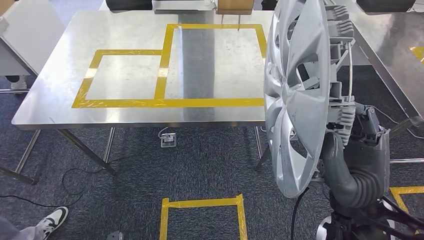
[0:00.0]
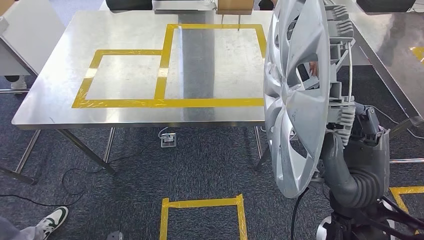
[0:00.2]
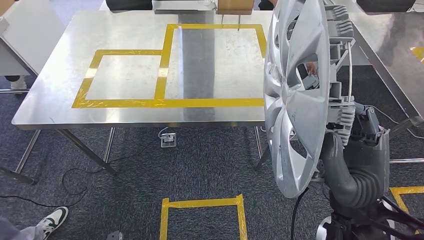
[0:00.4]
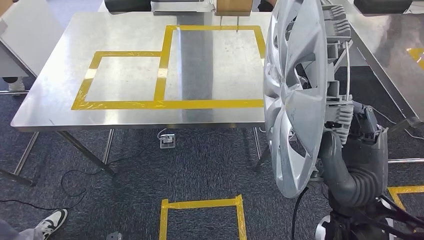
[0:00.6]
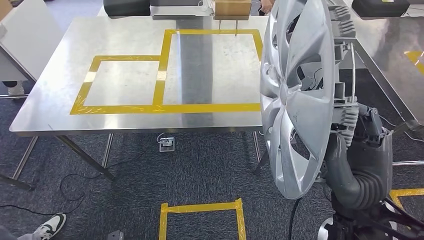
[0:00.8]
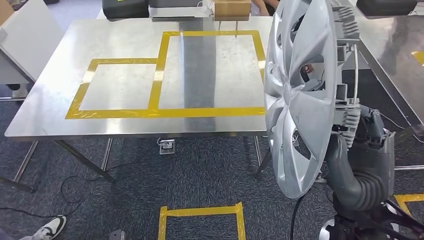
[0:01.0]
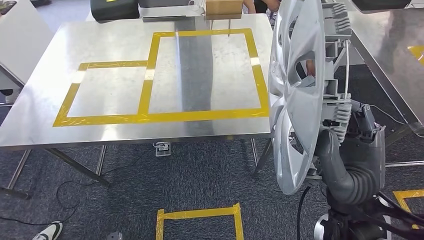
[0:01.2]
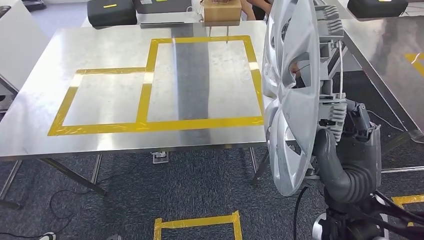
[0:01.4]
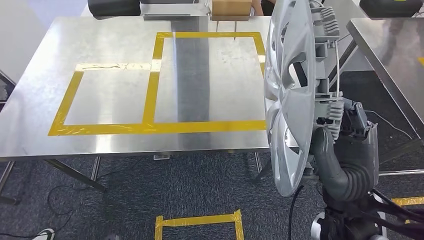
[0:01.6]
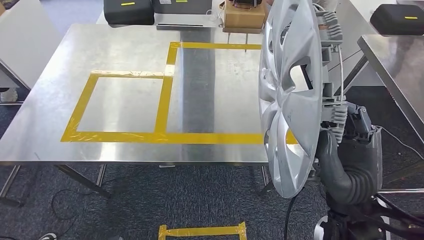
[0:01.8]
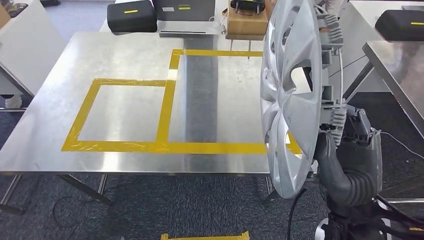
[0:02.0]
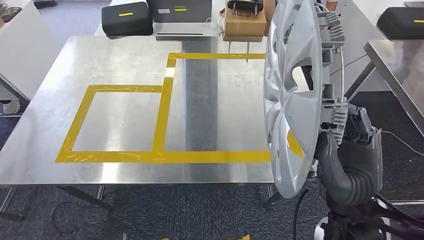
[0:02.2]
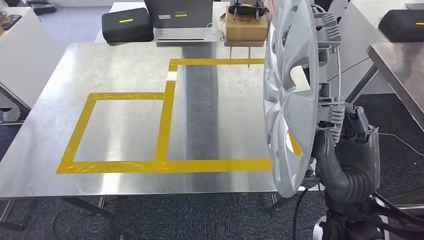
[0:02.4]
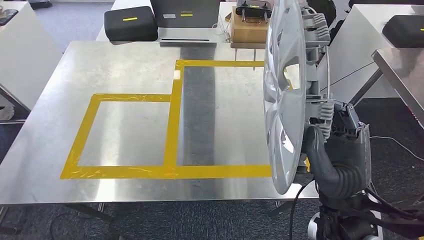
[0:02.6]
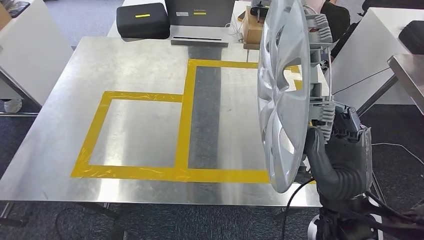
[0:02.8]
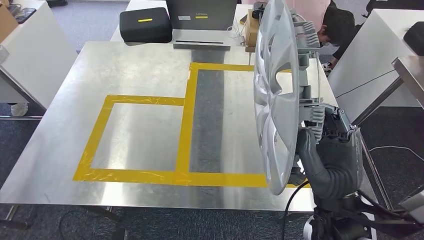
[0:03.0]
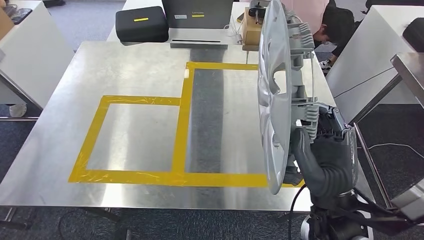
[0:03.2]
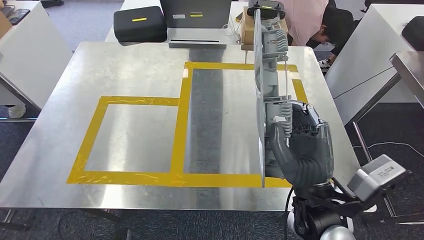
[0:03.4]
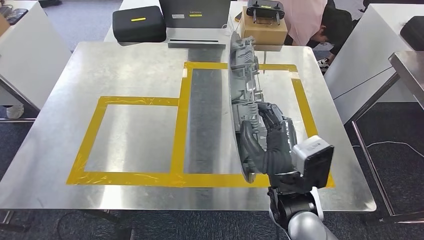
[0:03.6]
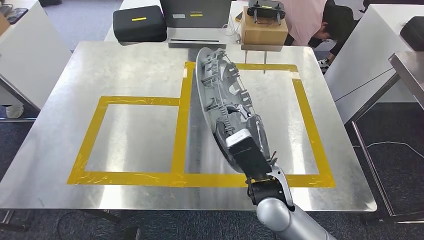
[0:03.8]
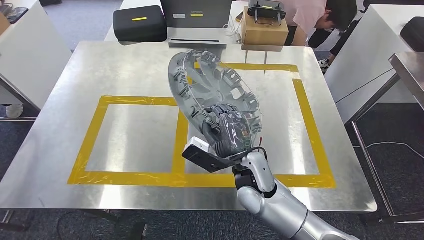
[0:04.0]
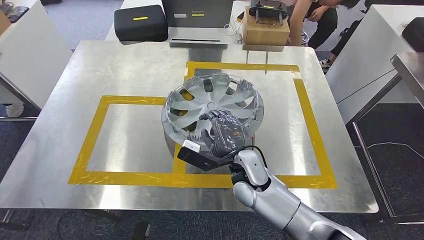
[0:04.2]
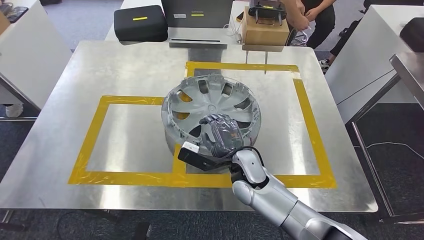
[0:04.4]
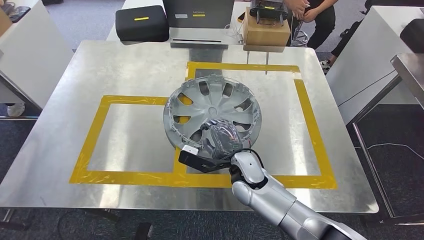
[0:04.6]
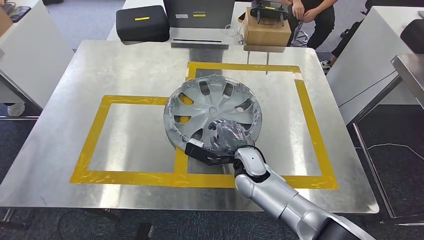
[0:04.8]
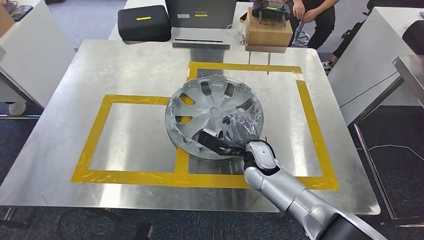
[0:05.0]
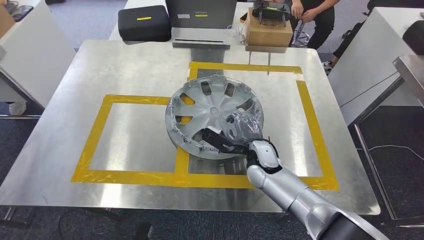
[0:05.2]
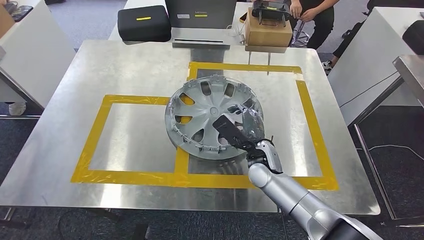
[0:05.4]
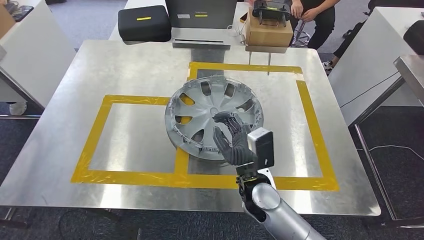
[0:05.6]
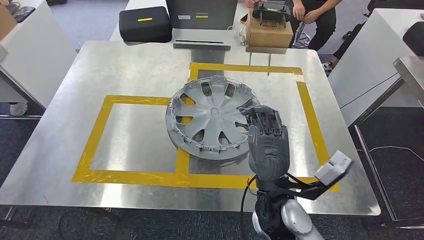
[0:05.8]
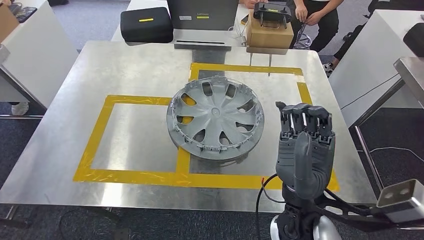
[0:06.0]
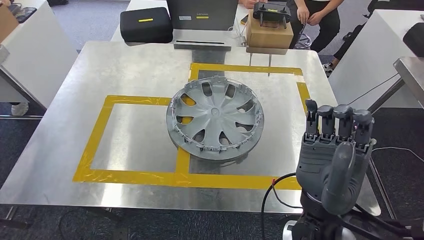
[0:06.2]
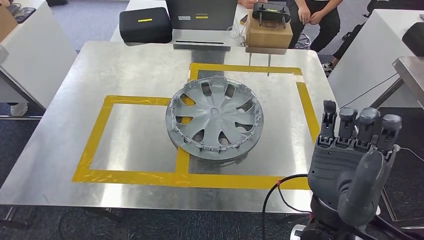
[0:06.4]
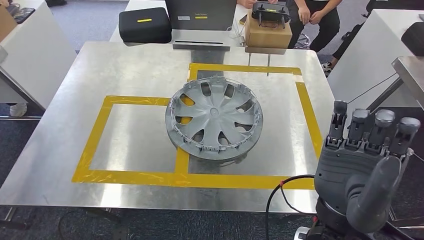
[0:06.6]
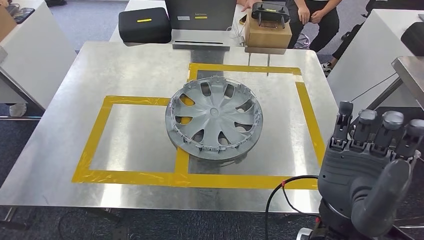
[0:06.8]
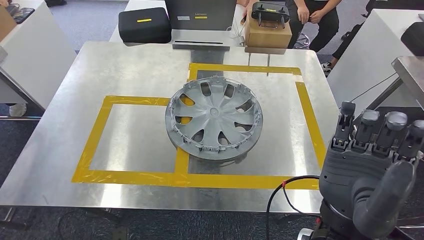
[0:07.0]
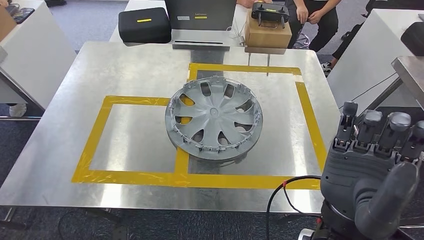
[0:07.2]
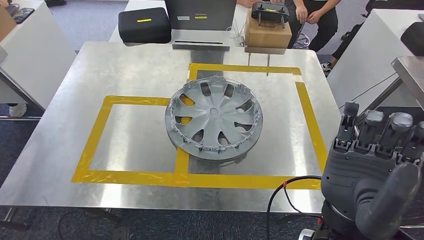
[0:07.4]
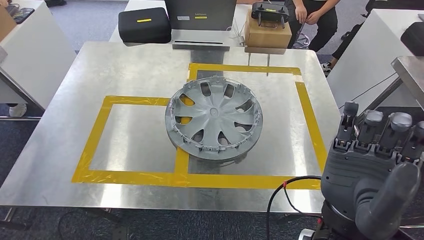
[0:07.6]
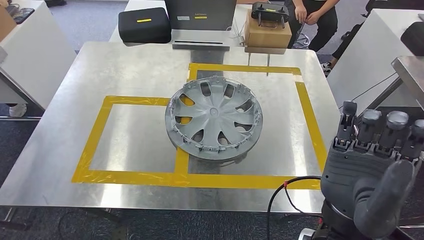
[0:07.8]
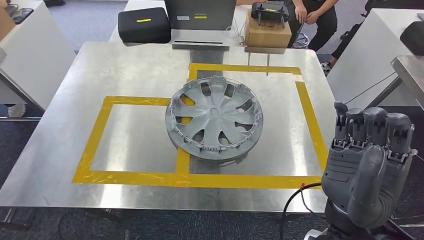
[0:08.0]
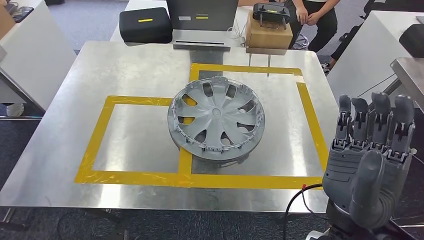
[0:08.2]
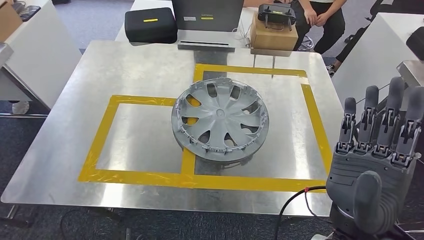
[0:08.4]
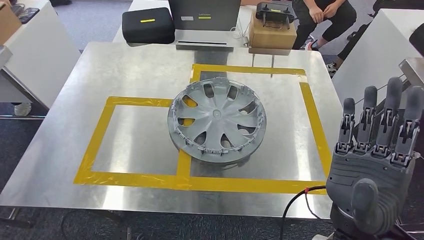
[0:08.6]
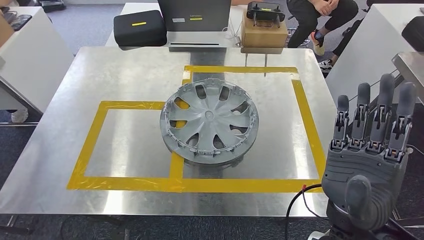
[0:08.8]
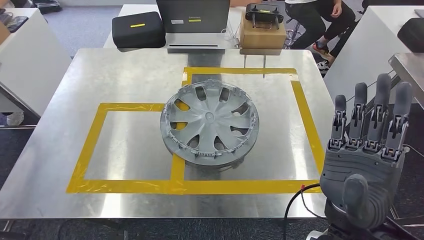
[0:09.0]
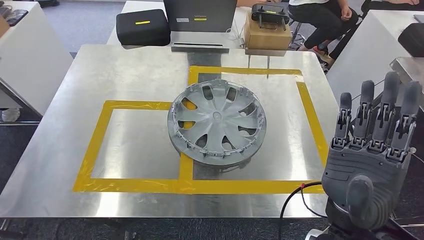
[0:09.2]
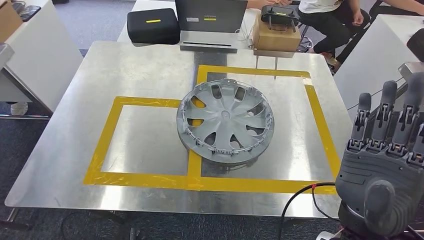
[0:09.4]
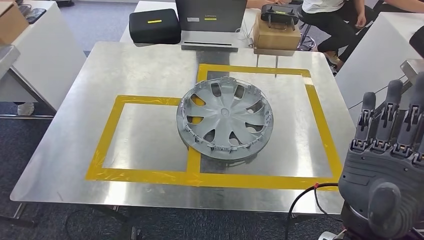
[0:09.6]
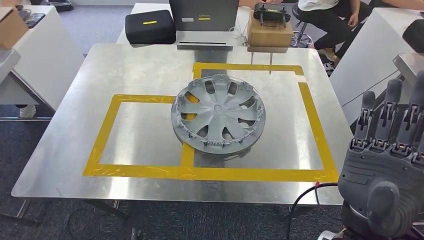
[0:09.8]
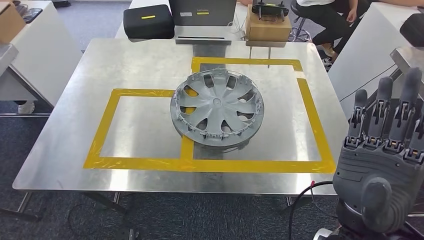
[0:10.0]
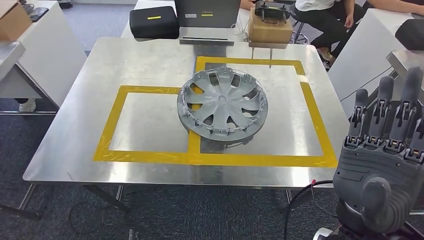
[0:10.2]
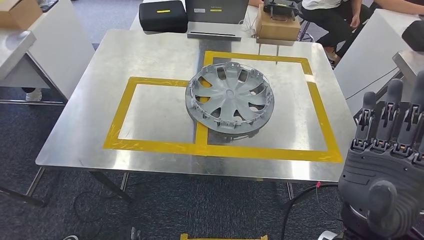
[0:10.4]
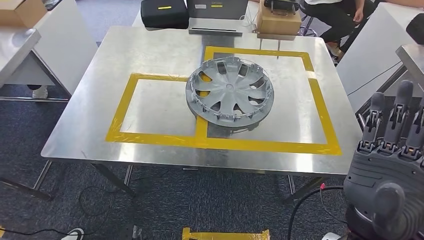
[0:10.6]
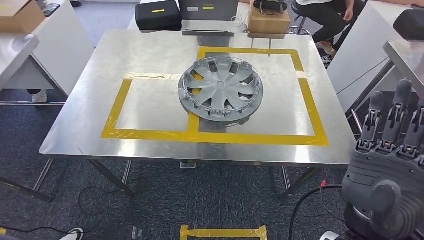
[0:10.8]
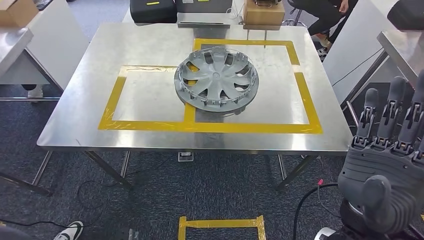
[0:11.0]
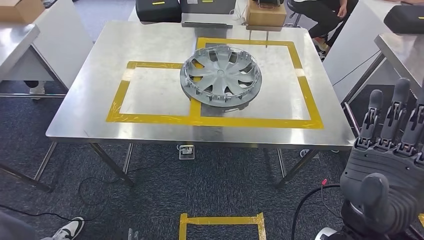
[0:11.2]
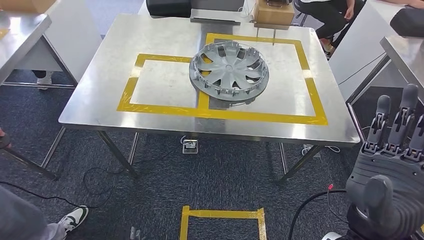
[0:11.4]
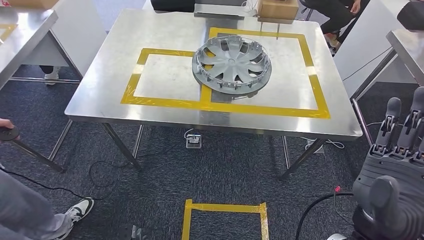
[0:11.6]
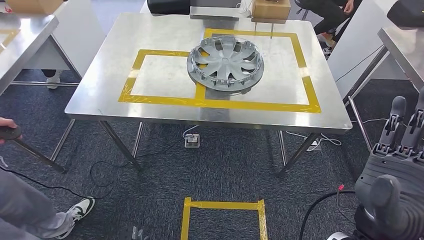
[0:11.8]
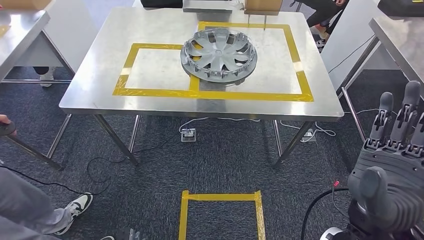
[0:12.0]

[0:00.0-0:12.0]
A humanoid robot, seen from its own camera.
Step, 0:00.0 to 0:03.2: Move the small component to the workbench.
Step, 0:03.6 to 0:11.0: Insert the small component into the corresponding slot on the workbench.
0:06.0 to 0:07.6: The right hand travels upward by roughly 5 cm.

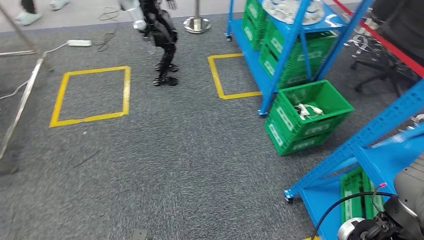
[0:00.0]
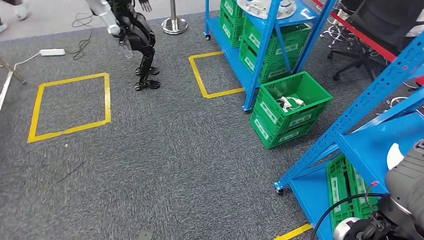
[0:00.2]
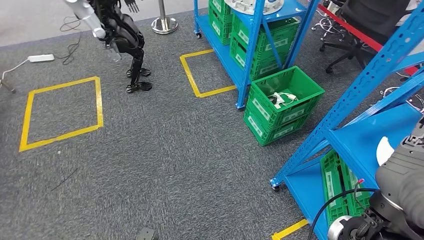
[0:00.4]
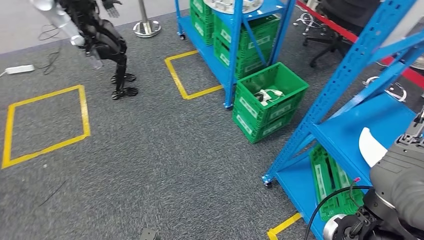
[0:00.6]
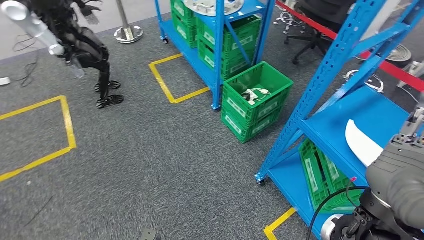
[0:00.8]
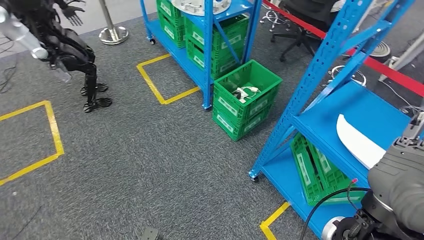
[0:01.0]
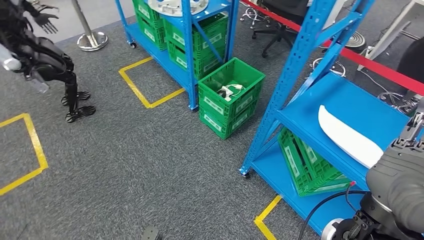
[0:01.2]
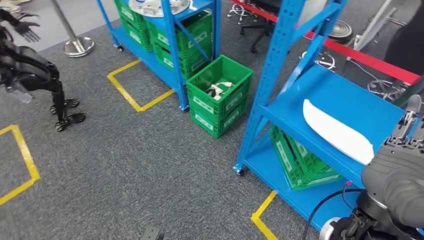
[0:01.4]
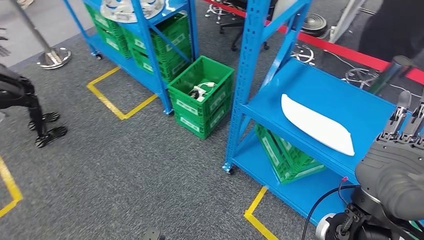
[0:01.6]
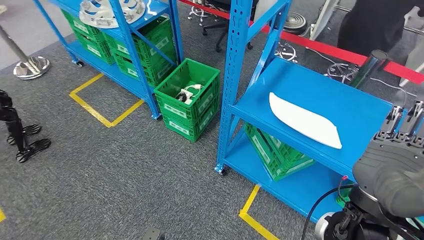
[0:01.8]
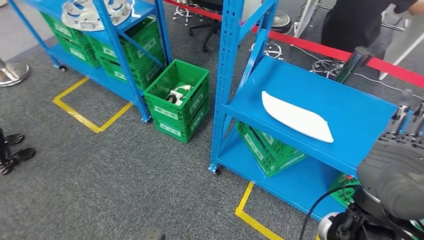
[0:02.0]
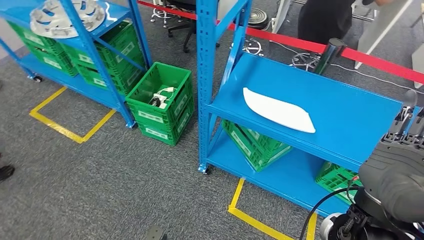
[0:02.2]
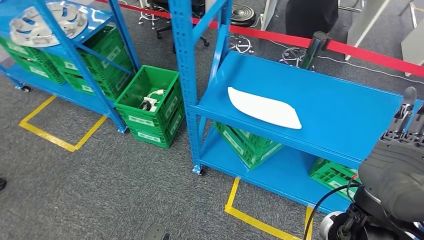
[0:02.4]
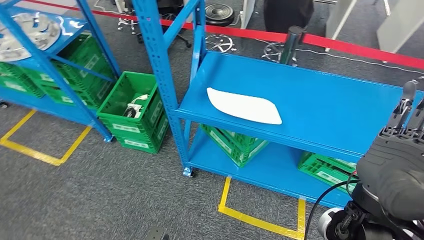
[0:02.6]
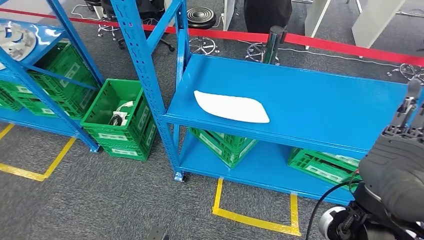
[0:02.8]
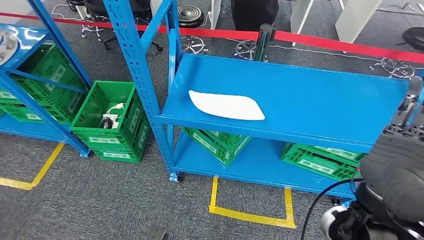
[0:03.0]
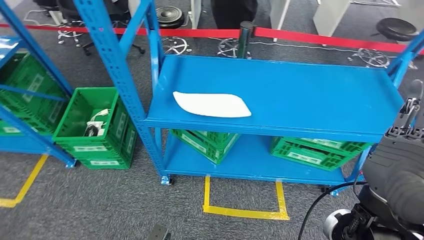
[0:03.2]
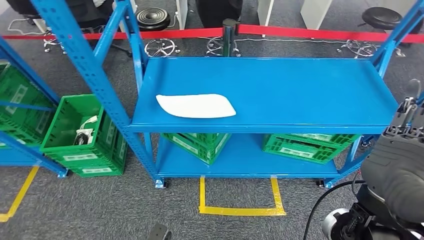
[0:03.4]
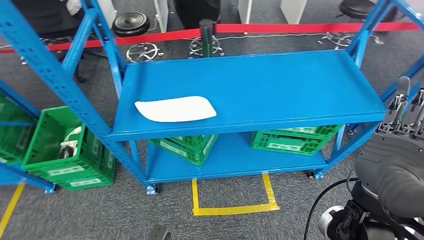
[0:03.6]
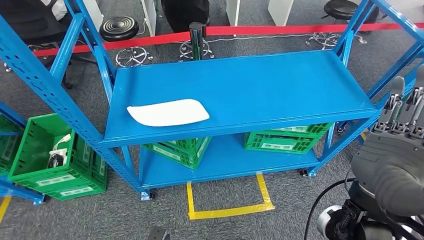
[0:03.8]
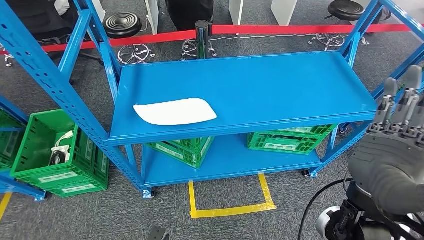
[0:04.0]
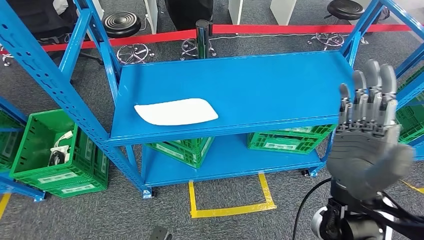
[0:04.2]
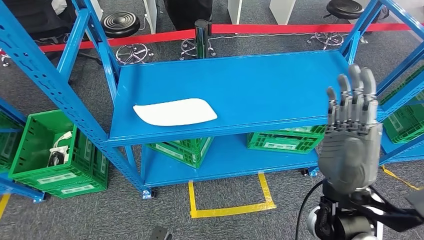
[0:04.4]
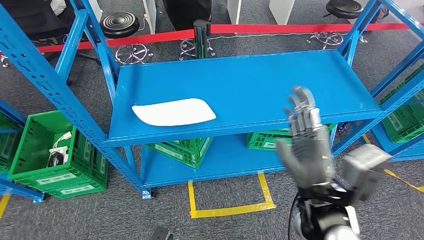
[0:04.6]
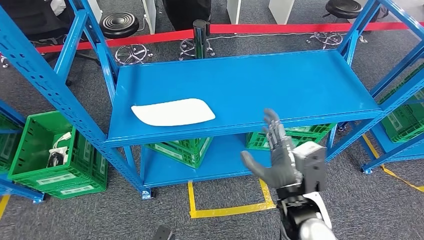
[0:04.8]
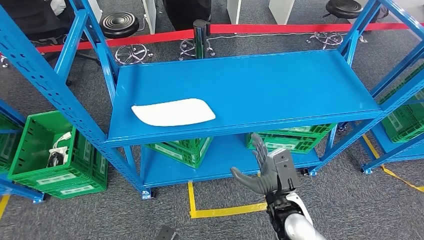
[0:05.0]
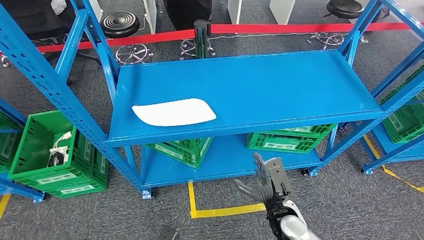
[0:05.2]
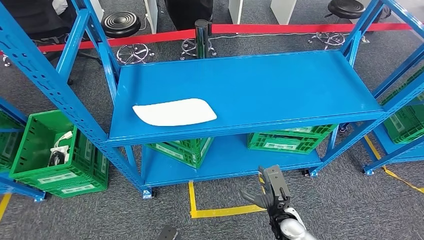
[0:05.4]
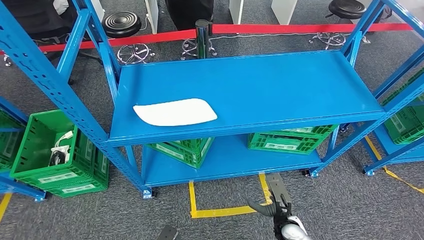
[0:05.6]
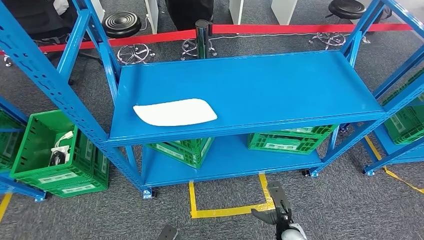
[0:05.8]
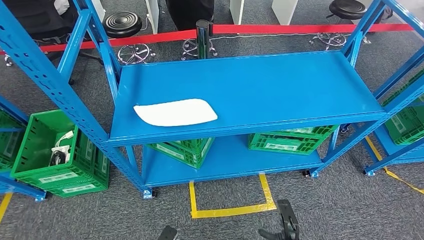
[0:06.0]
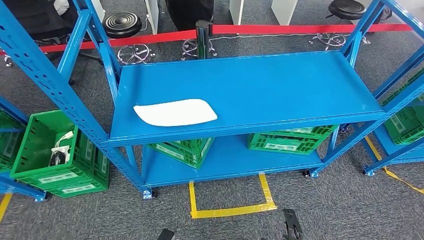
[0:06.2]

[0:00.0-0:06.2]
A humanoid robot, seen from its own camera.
Step, 0:00.0 to 0:06.2: Return to the initial position at the workbench.
0:04.6 to 0:06.2: The right hand heads downward, covering approximately 35 cm.
